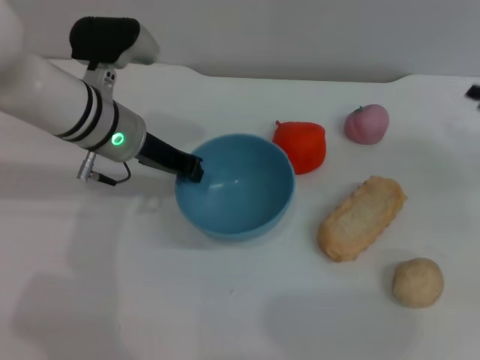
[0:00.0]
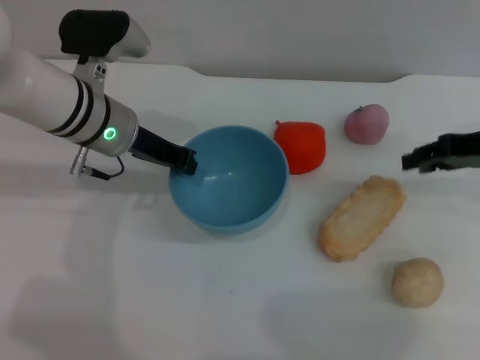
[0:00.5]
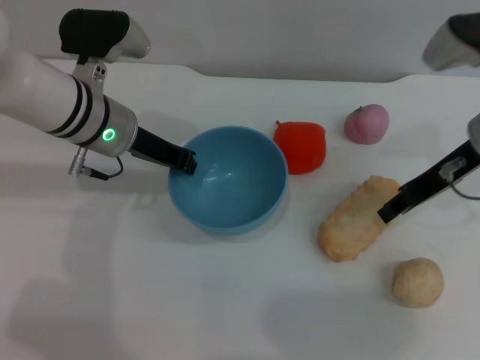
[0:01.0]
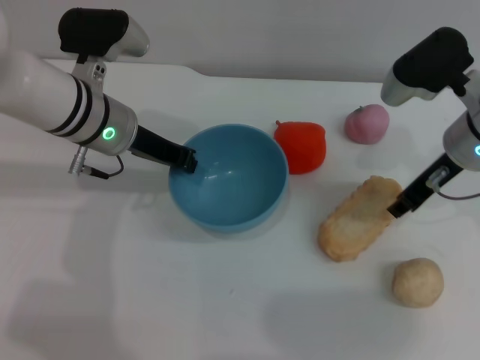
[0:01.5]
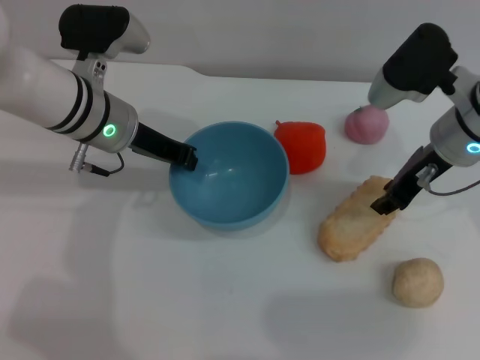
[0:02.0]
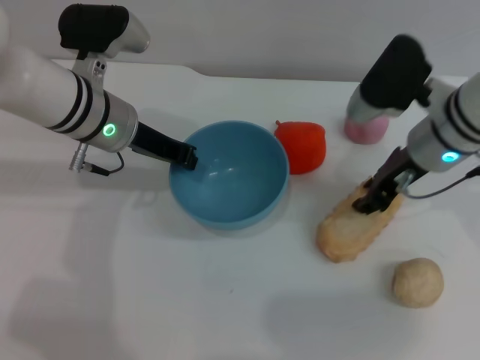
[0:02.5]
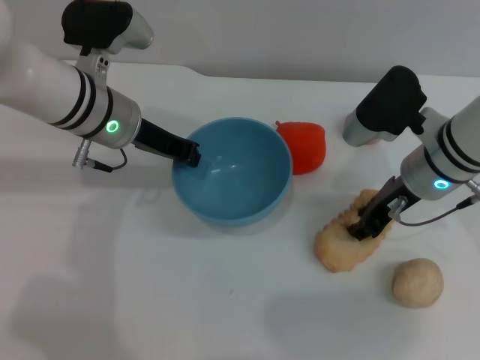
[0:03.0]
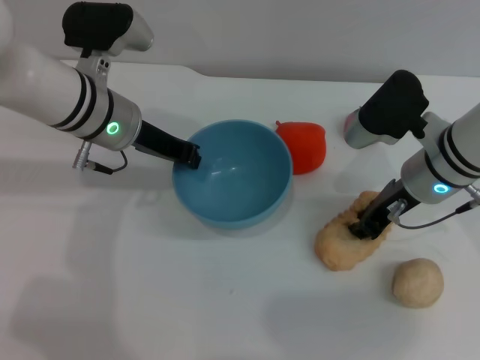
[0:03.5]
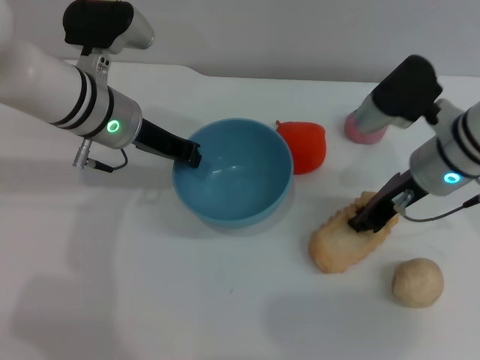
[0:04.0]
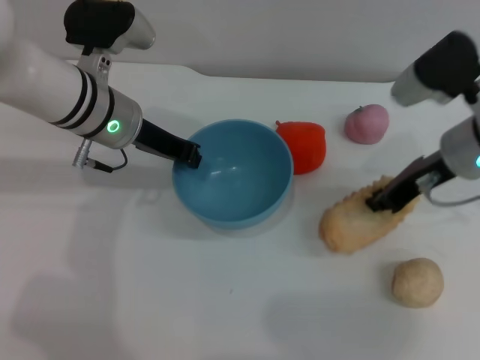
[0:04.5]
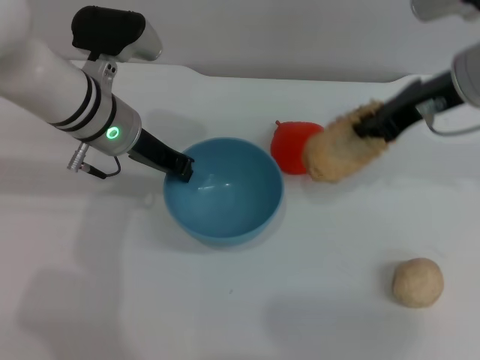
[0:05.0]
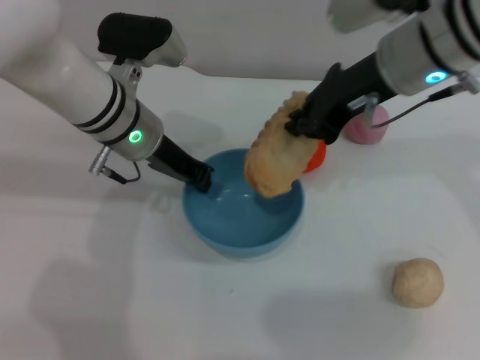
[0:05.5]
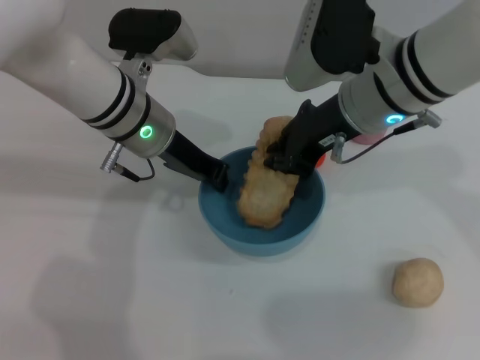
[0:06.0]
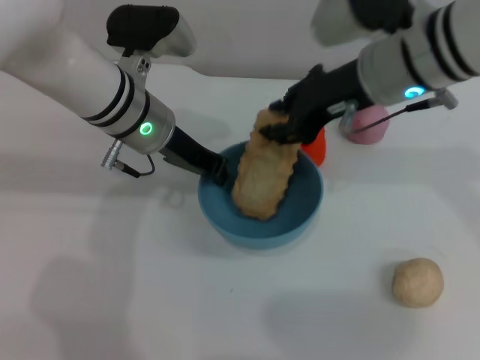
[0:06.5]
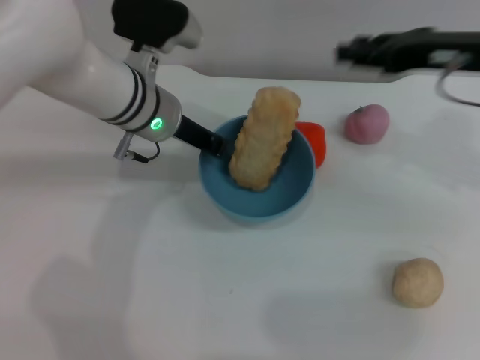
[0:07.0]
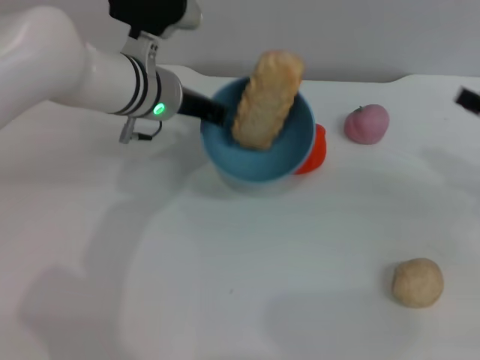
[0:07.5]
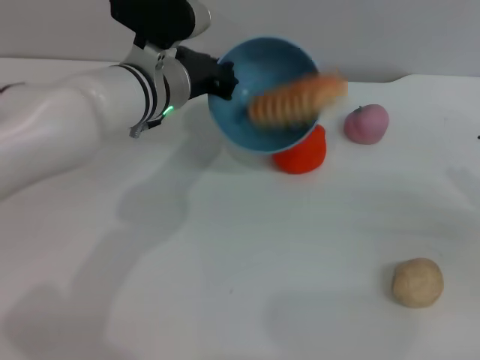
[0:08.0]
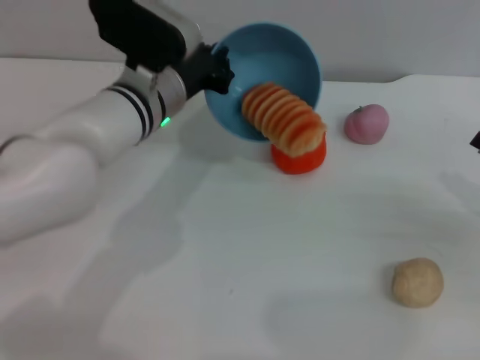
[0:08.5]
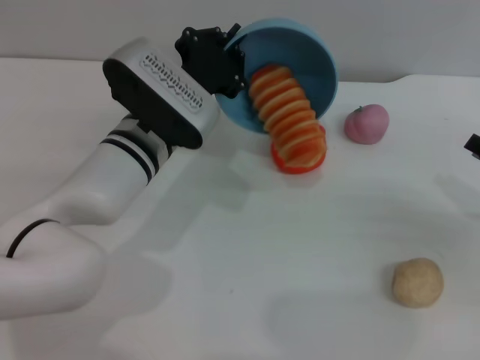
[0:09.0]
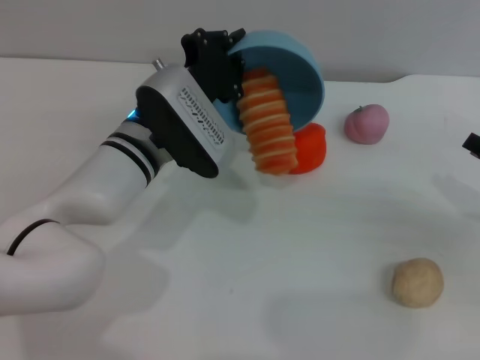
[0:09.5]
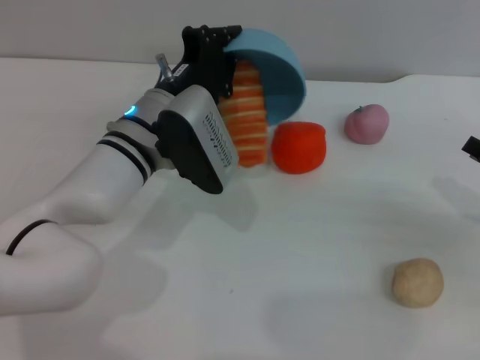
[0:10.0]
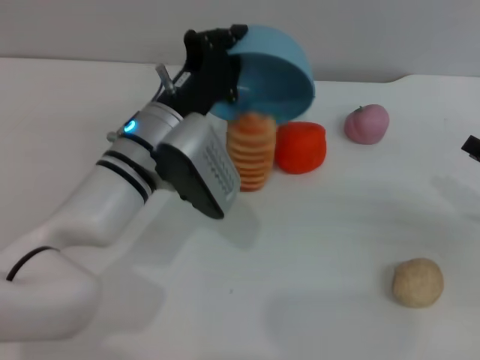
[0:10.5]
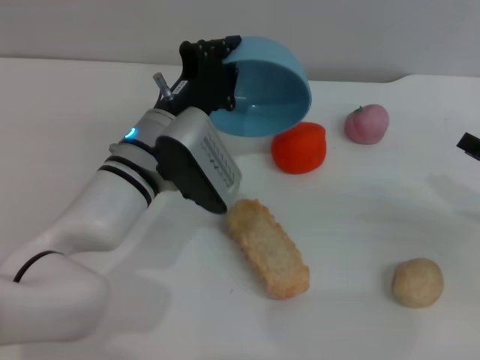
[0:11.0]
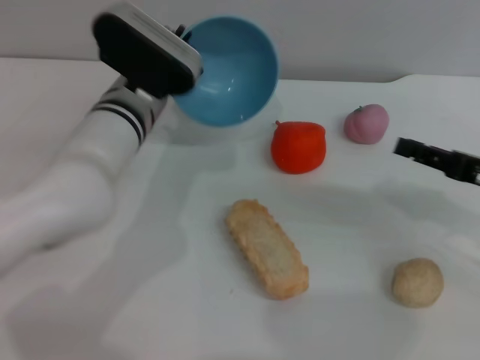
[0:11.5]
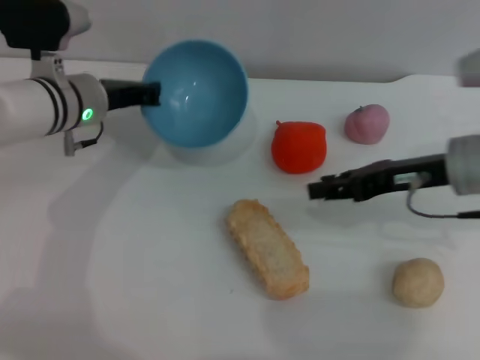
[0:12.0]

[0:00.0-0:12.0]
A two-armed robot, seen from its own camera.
Task of the whole recording: put the bread into the blue bowl and pour it out repeatedly.
Step, 0:00.5 to 0:04.0: Pick up the bread with the right gripper.
Step, 0:05.0 to 0:06.5: Place the bread into the bowl.
Step, 0:07.0 to 0:10.5: Pour the bread out of the bowl.
0:00.0 to 0:02.0: The right gripper travels to the left by approximately 15 cm.
0:02.0 to 0:04.0: The right gripper closes up.
0:04.0 to 0:06.0: The right gripper travels to the left and upward by roughly 10 cm.
0:06.0 to 0:08.0: The right gripper shifts some 30 cm to the right and downward, and opens its fingers.
0:08.0 to 0:10.0: The left gripper ends up roughly 5 cm from where it was.
0:10.0 to 0:12.0: Both grippers travel together to the left and forward, roughly 15 cm.

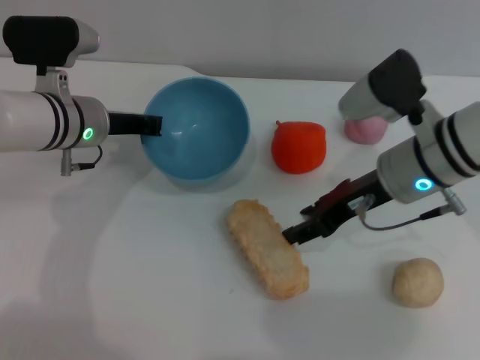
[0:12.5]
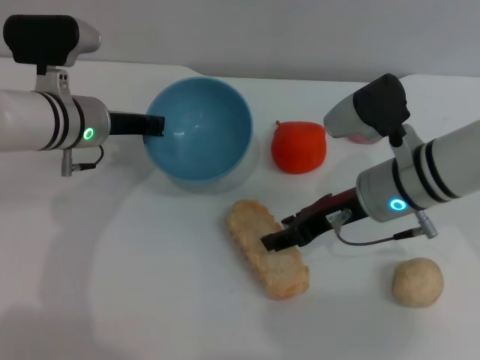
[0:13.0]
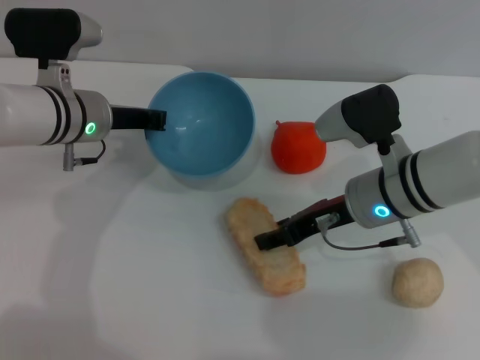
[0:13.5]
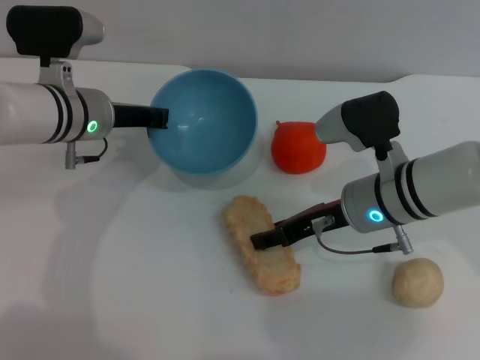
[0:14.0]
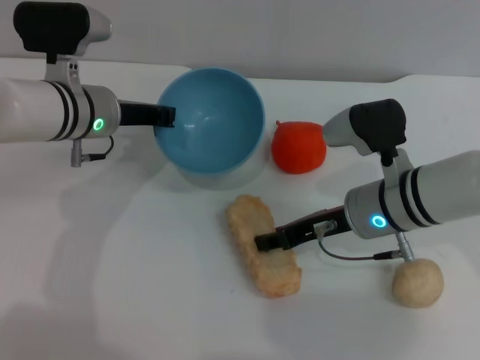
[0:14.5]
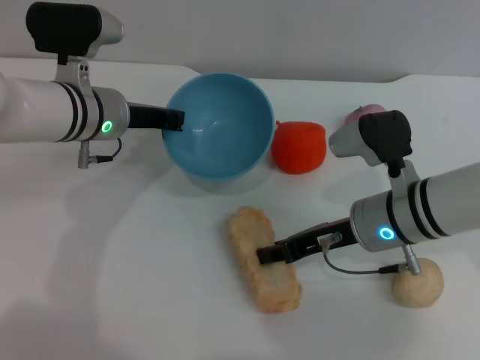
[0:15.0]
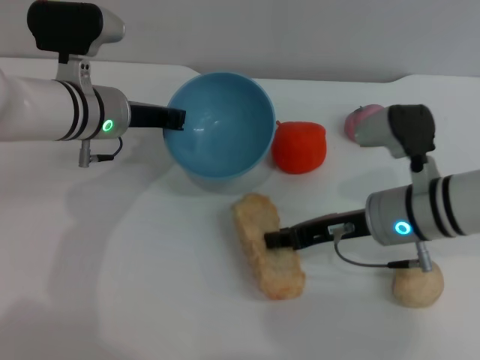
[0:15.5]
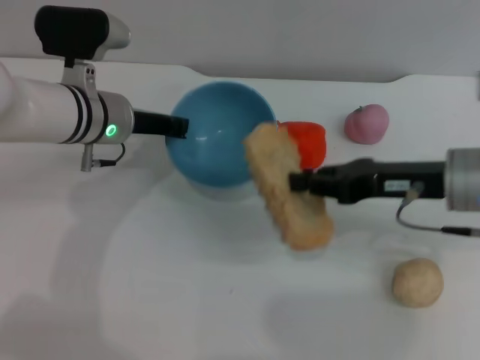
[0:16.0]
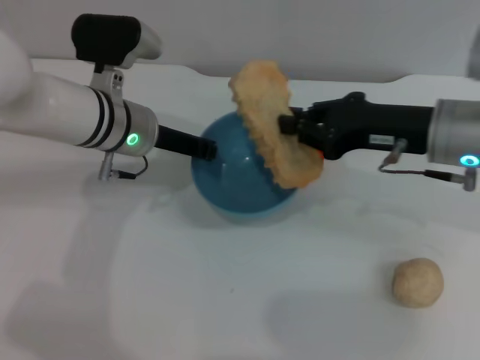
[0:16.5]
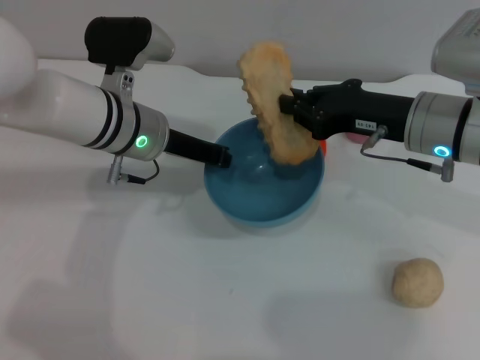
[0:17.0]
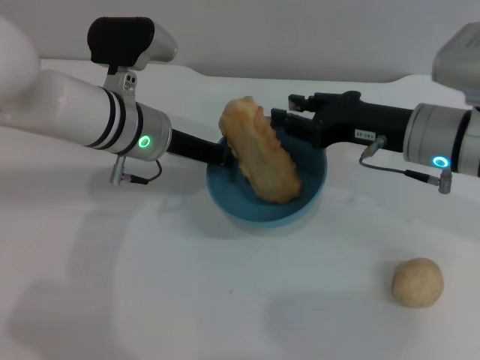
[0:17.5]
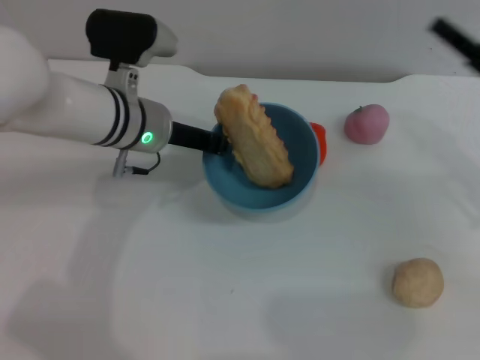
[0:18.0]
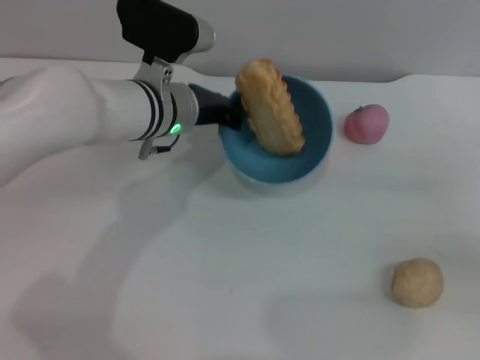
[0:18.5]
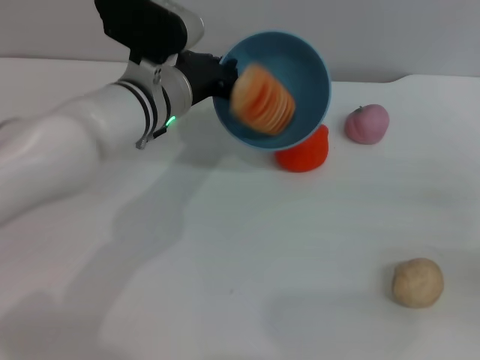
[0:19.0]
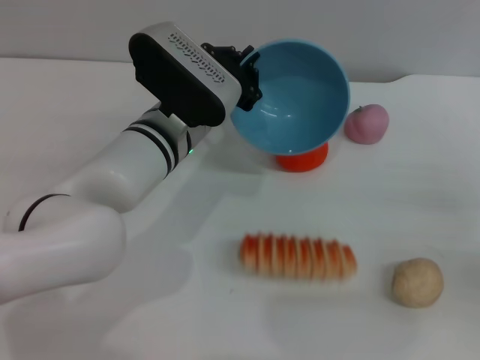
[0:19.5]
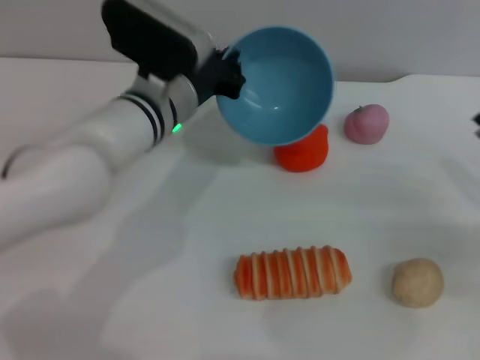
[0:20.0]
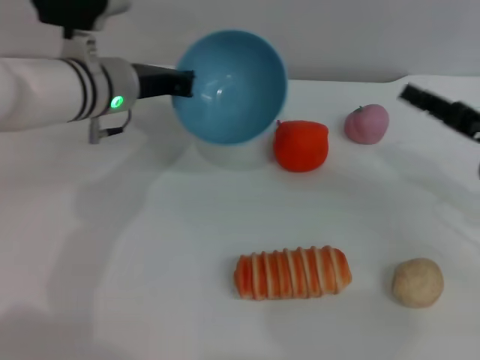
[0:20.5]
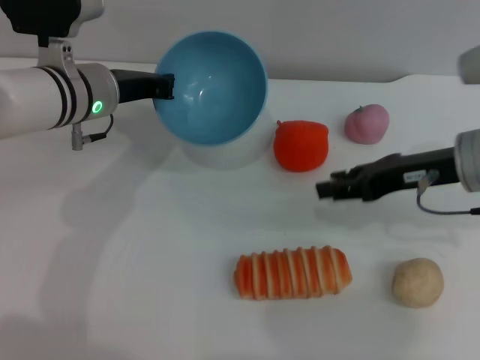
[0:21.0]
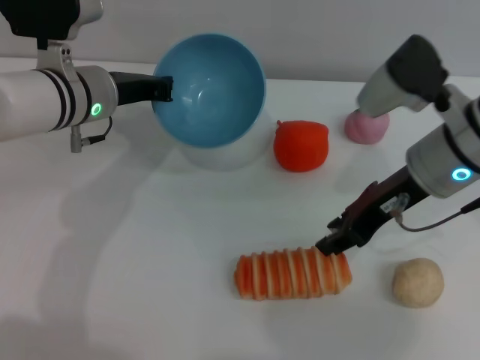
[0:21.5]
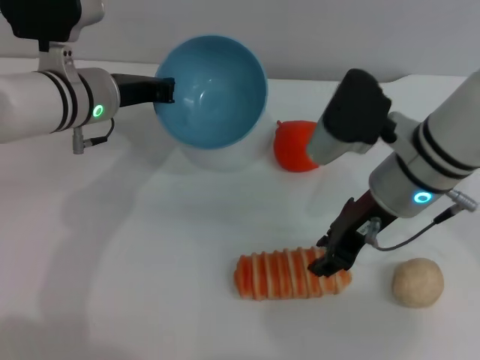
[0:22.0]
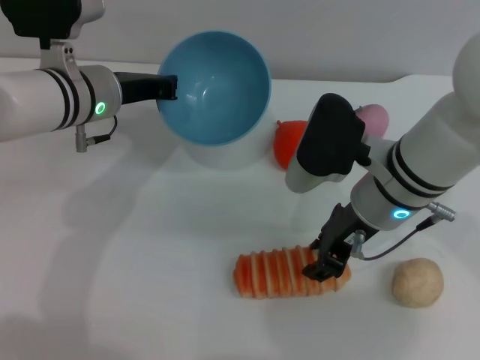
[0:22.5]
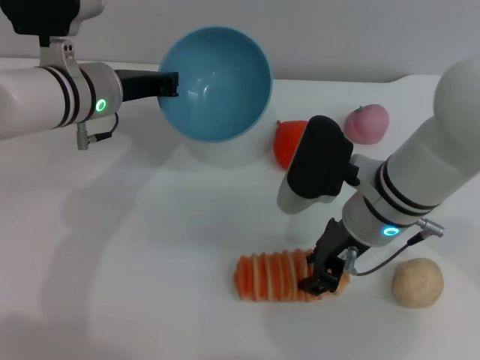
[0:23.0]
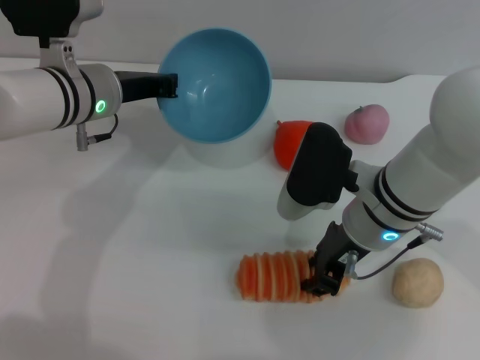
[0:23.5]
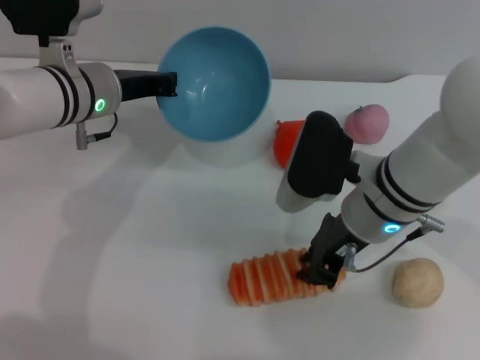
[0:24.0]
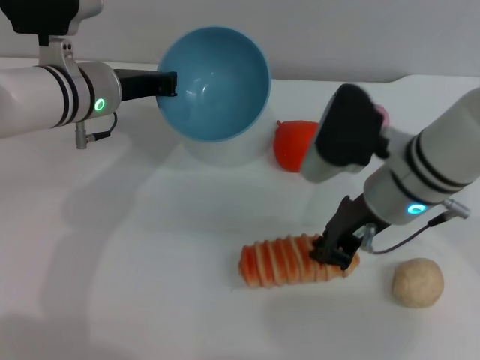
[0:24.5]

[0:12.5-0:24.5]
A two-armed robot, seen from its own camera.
Task of the whole recording: put the bread into the blue bowl and pour it out repeatedly.
Step, 0:12.5 to 0:15.5: Pick up the bread with the right gripper.
Step, 0:16.0 to 0:17.5: Place the bread into the bowl.
Step, 0:18.0 to 0:20.0: Pour the bread out of the bowl.
0:12.5 to 0:14.5: The right gripper shifts some 5 cm downward.
0:14.5 to 0:16.5: The right gripper goes approximately 10 cm upward and to the right, and closes its fingers.
0:16.5 to 0:18.5: The right gripper heads to the right, backward and downward, covering about 20 cm, and opens its fingers.
0:18.5 to 0:20.5: The right gripper heads to the left and forward, covering roughly 10 cm. The left gripper is displaced to the left by approximately 5 cm.
0:20.5 to 0:22.5: The right gripper heads to the left, covering approximately 20 cm.
0:22.5 to 0:24.5: The right gripper closes.

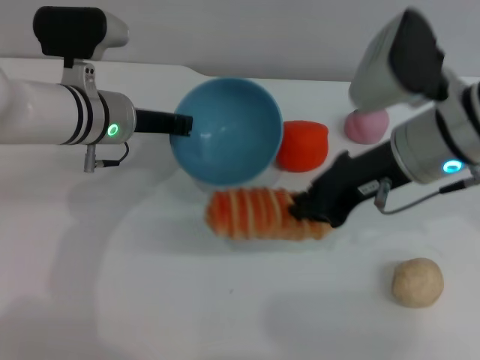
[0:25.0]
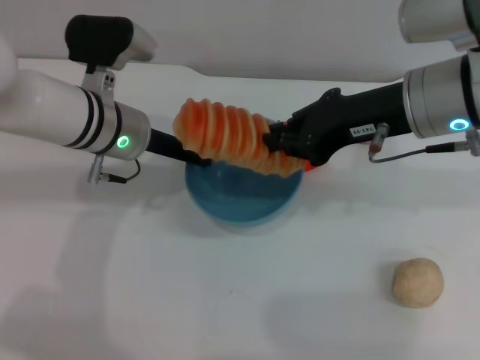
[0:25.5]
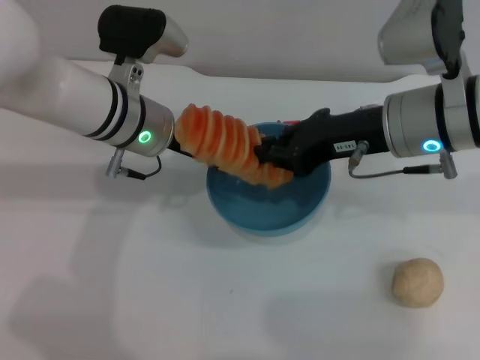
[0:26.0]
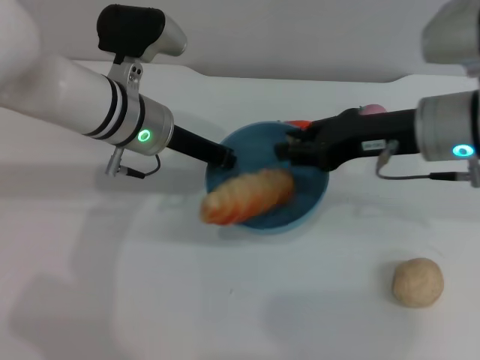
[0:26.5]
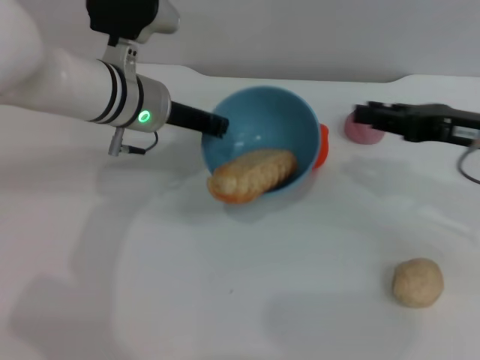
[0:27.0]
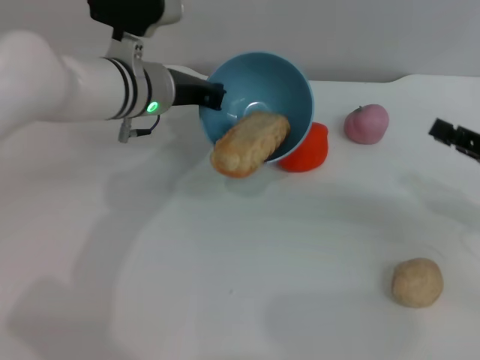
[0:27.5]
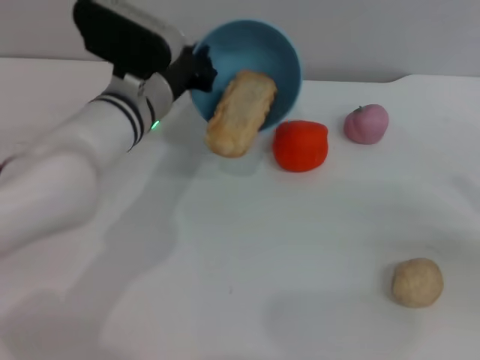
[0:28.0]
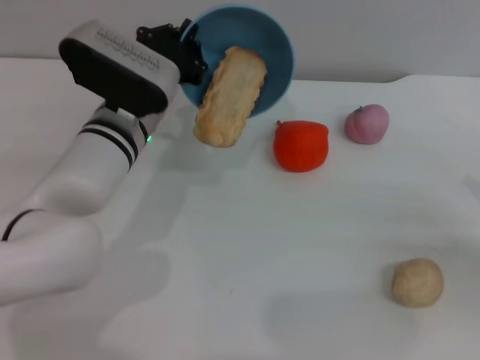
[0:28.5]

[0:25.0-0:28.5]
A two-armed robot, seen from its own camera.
Task of the whole recording: put the bread into the blue bowl and pour it out repeatedly.
Step, 0:25.5 to 0:27.0: Place the bread into the bowl.
0:25.0 to 0:27.0: The right gripper travels to the right by some 10 cm, and opens up.
0:27.0 to 0:28.5: The right gripper heads to the right, backward and downward, covering some 15 cm. The left gripper ends up some 5 cm from where it was.
